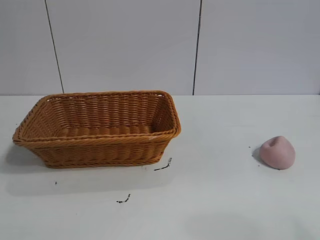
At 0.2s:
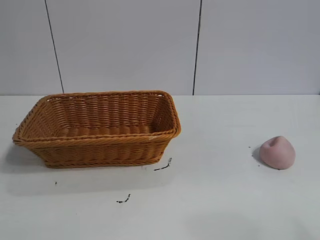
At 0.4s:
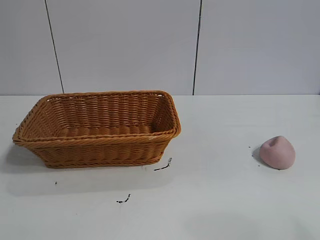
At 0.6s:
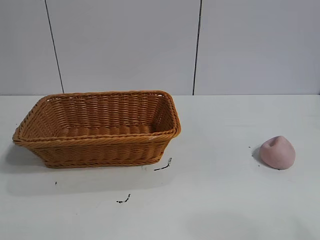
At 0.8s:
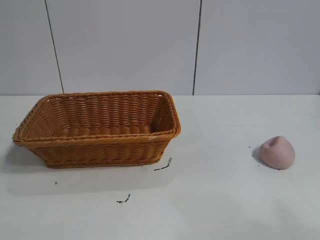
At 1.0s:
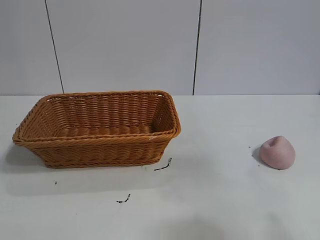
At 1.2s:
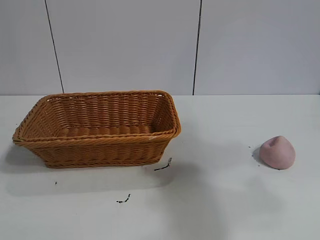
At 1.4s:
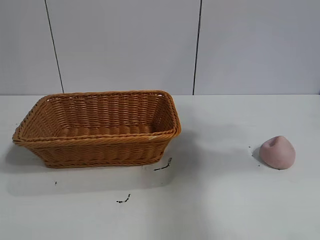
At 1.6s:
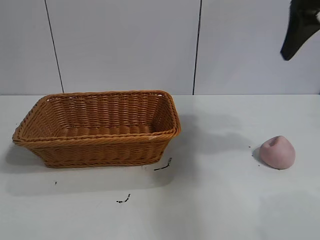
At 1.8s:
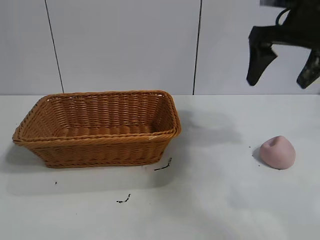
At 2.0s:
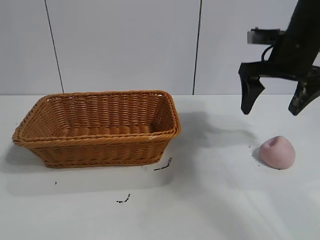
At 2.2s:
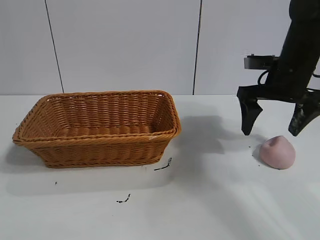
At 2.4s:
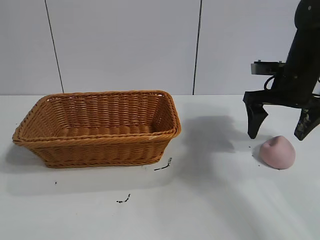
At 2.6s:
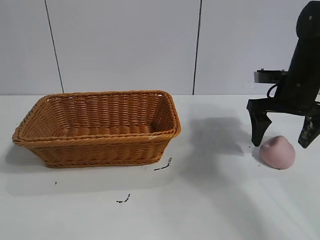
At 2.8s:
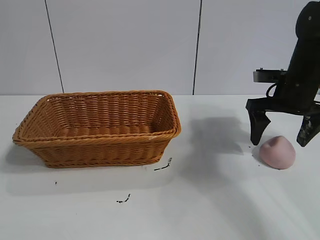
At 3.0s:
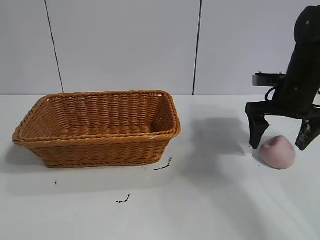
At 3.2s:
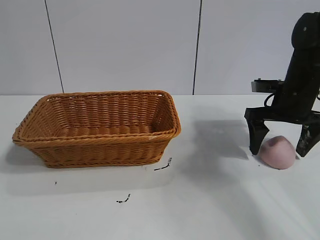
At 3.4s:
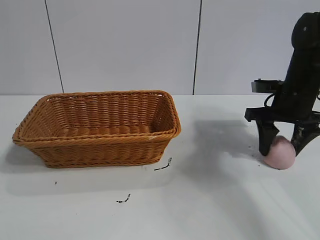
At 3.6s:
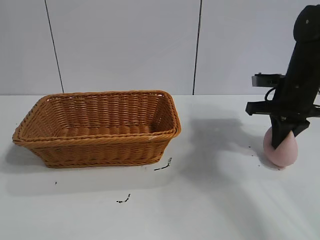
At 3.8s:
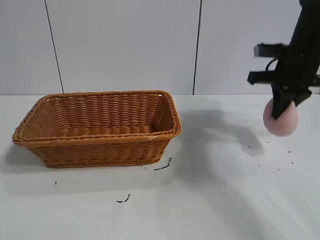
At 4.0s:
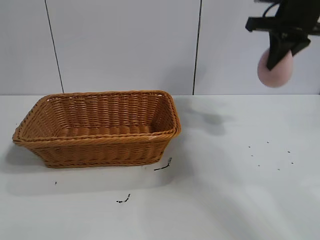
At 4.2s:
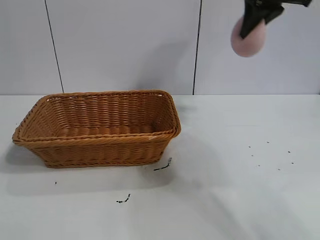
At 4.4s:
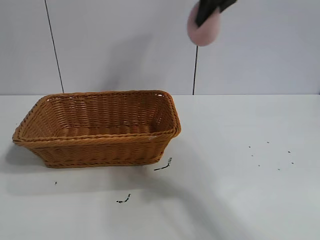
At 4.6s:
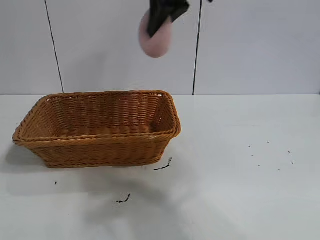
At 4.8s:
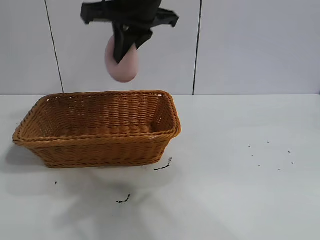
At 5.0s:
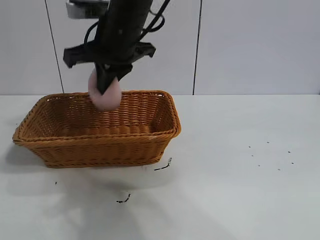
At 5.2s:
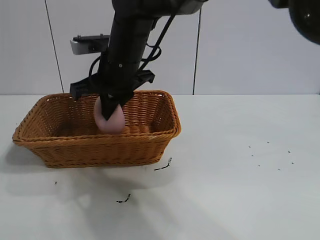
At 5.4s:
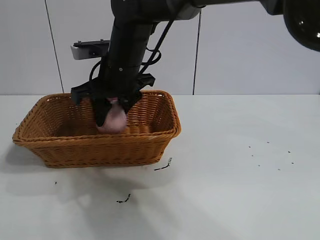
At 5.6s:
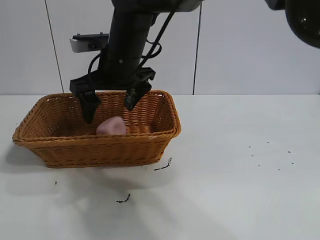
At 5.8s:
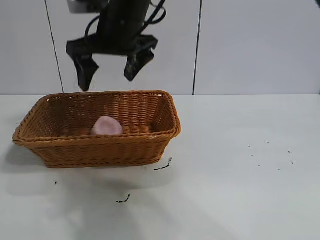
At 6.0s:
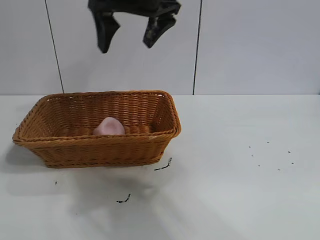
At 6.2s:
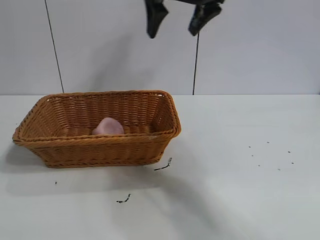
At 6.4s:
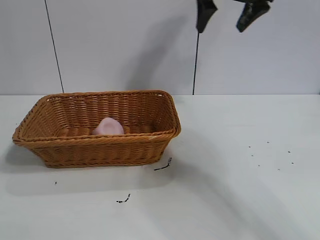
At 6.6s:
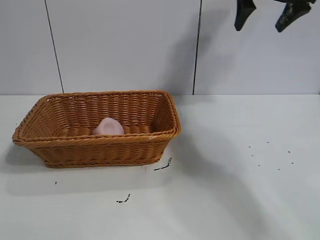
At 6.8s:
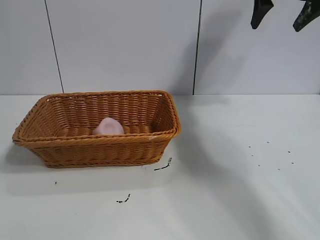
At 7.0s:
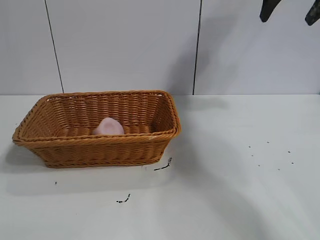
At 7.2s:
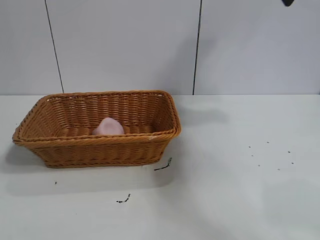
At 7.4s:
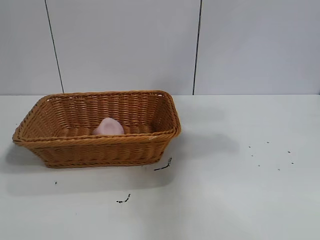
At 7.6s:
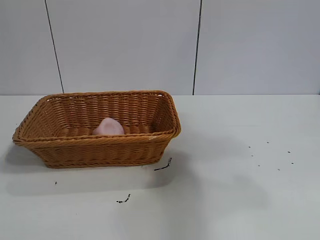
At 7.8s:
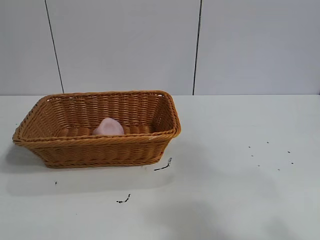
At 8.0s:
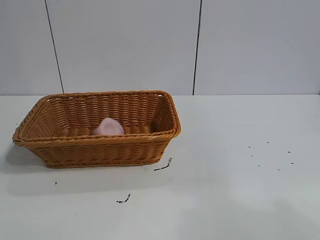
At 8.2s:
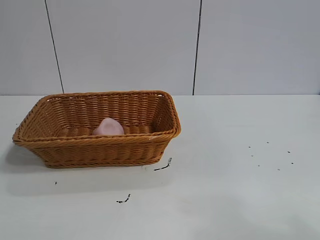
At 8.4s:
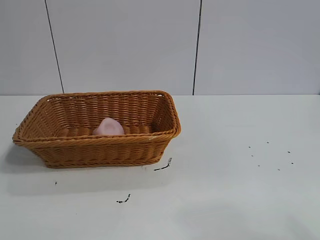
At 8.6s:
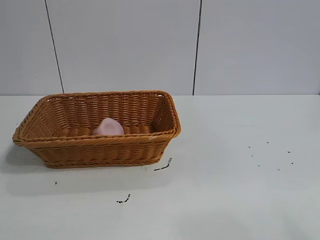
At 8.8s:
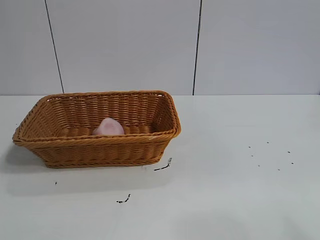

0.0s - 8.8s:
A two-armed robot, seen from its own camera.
Task of the whole recording: pick up the peach and put it into the basket.
Step, 0.6s - 3.4s: Grasp the peach with right gripper.
Step, 3.8s - 5.8s: Place the peach in the basket with right gripper.

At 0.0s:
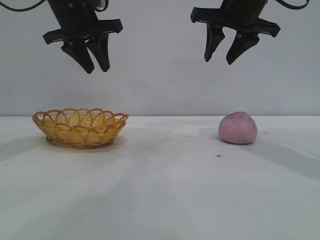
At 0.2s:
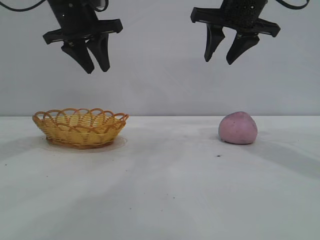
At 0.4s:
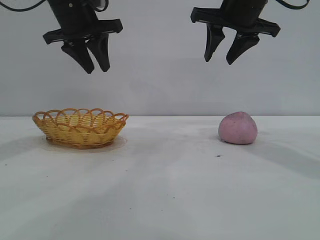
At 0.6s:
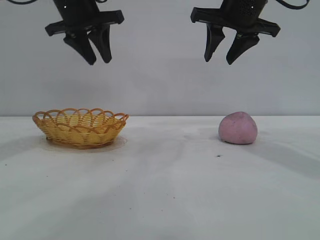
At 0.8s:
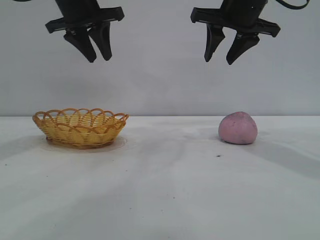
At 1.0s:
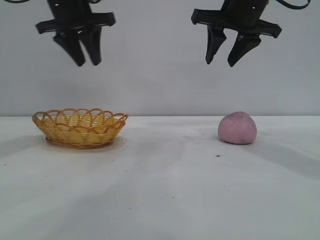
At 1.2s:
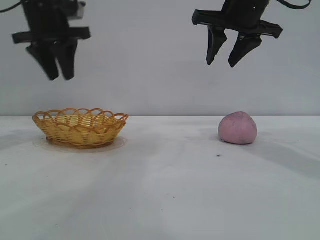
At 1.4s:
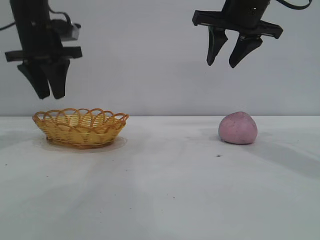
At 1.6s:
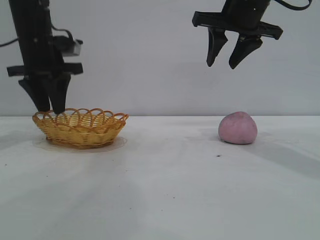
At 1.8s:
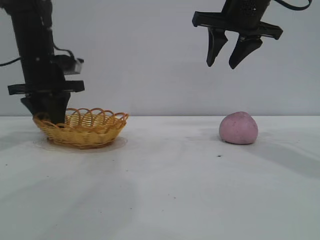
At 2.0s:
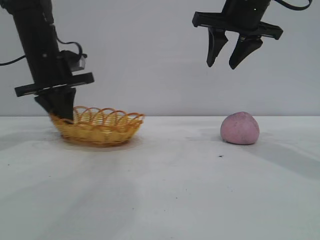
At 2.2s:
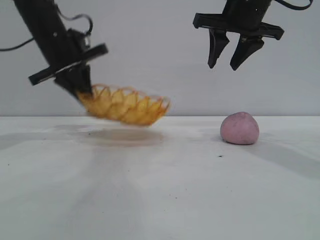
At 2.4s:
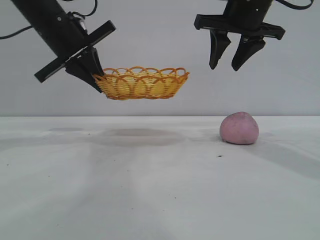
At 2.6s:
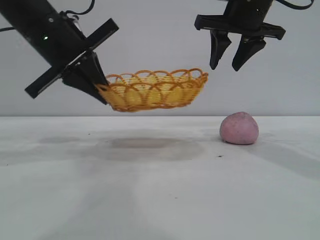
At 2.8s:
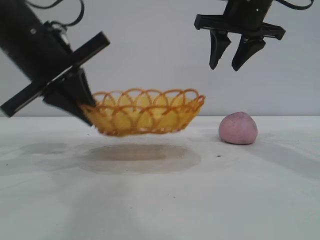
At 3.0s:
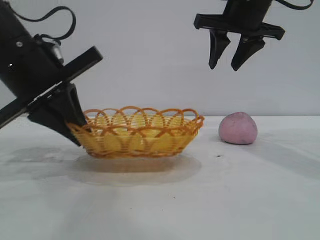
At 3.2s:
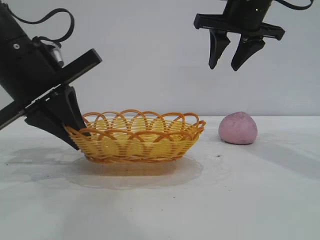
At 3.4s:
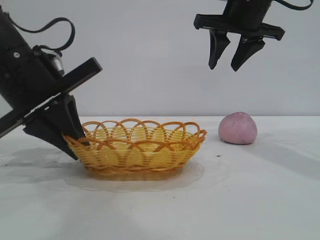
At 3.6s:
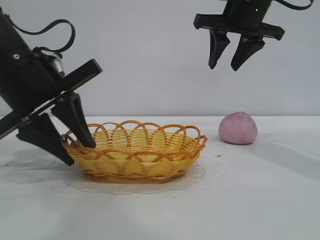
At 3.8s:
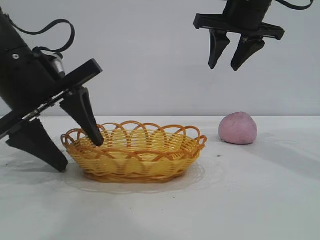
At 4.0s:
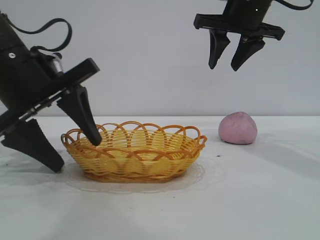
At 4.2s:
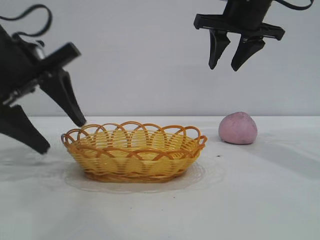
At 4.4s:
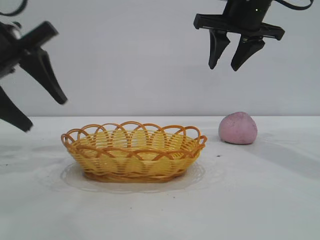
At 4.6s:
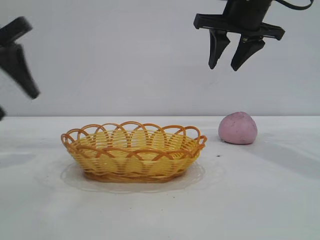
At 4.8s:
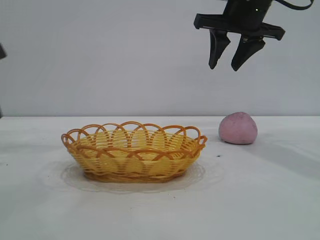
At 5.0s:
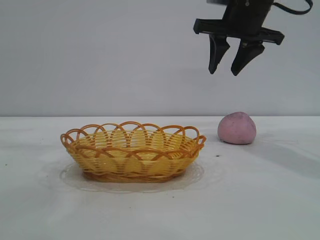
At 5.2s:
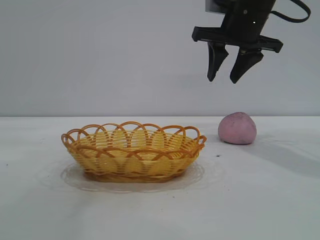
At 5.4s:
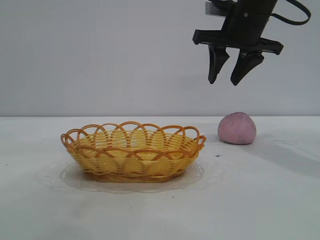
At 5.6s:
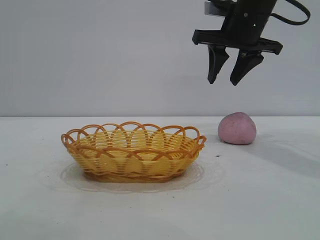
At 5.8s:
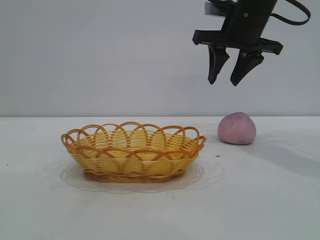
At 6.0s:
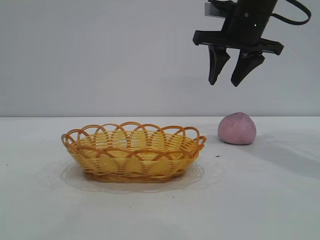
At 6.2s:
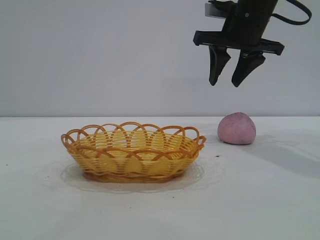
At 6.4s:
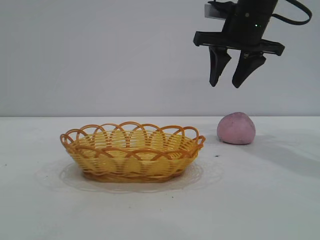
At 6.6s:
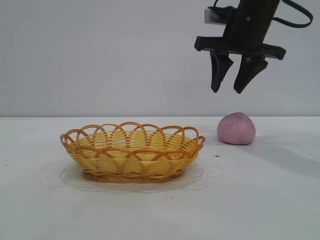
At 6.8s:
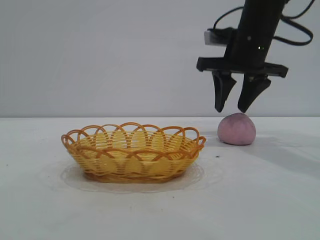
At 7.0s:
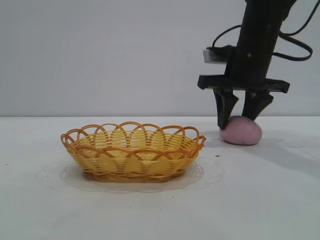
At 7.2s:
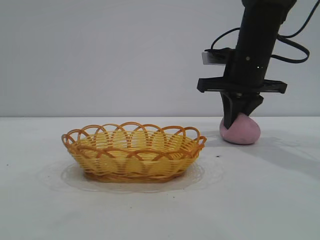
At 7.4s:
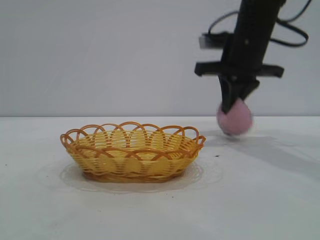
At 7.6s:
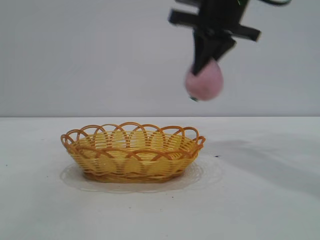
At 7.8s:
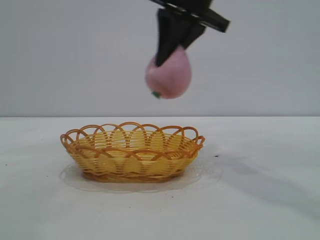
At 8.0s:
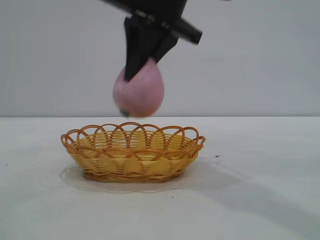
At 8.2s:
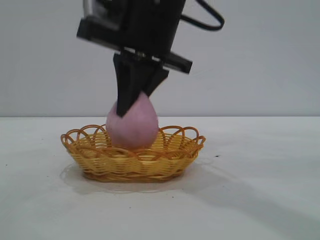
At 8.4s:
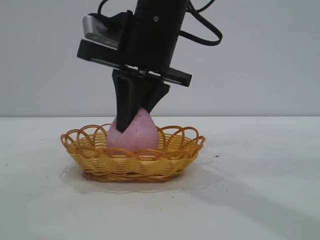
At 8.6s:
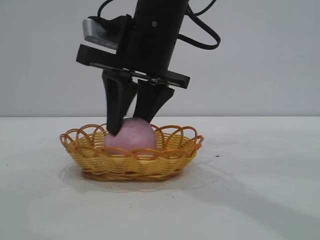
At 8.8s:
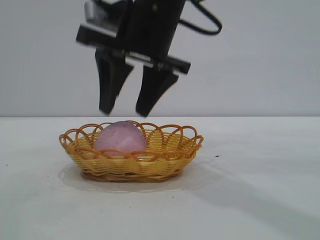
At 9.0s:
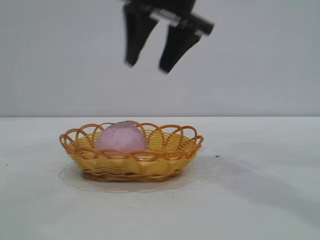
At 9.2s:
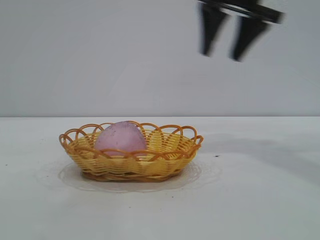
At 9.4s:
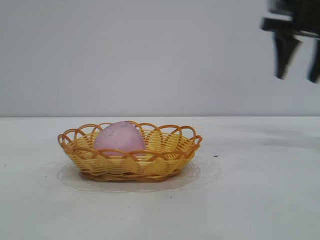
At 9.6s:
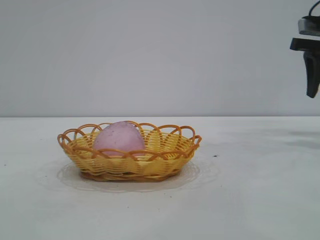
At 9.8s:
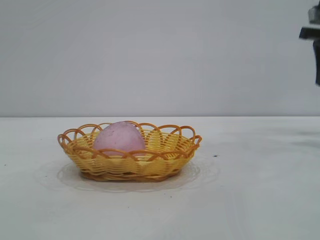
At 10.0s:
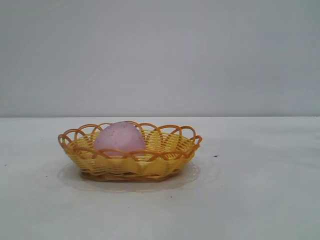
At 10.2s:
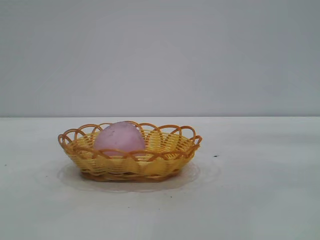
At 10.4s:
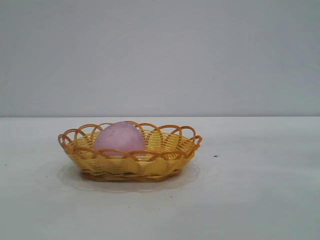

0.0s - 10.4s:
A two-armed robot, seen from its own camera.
Task of the whole recording: pick up the peach and put it into the basket.
Step, 0.0s - 4.4s: Move the basket to the center of view.
Step, 4.6s - 7.4s: Pick up the peach.
Step, 7.6s - 9.0s: place the peach into the basket.
